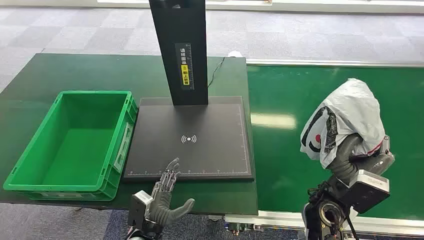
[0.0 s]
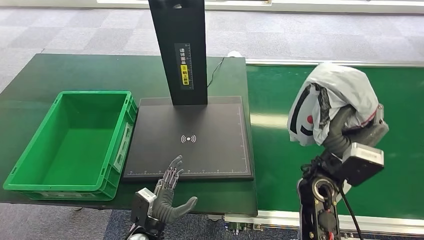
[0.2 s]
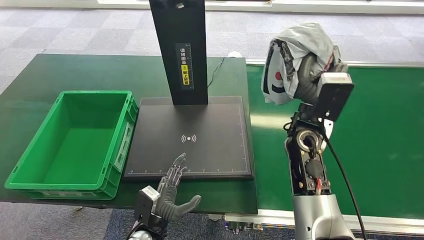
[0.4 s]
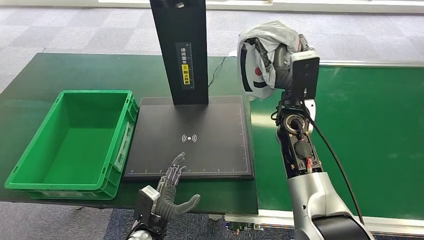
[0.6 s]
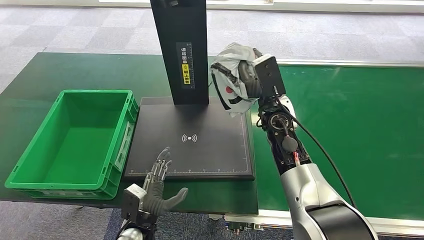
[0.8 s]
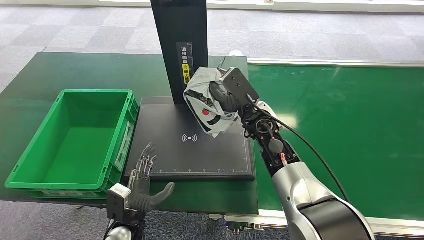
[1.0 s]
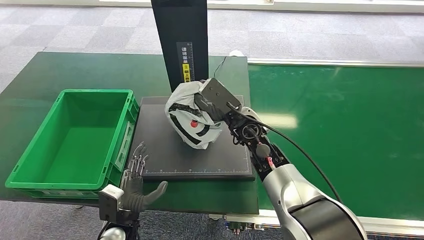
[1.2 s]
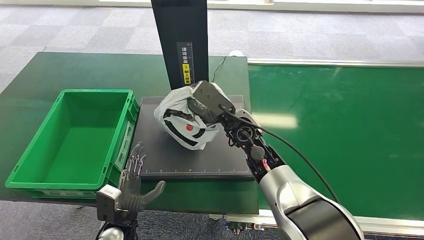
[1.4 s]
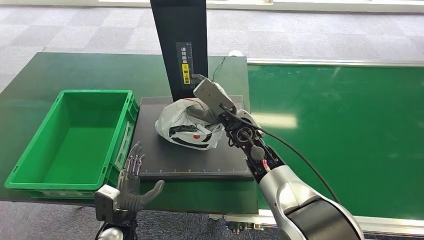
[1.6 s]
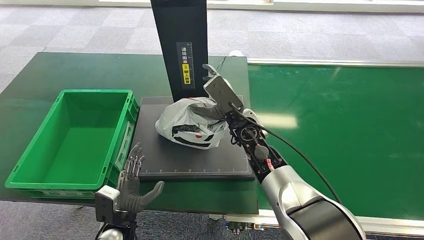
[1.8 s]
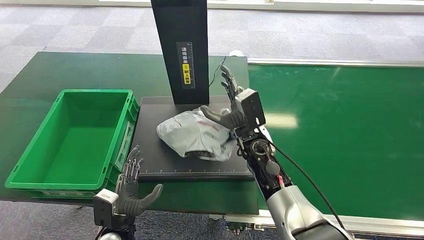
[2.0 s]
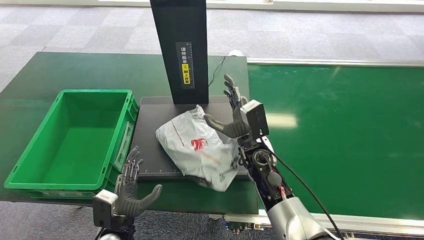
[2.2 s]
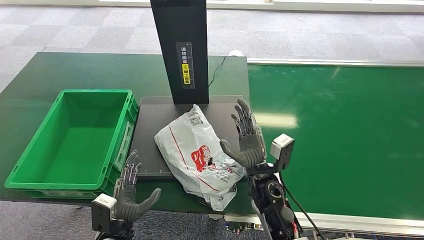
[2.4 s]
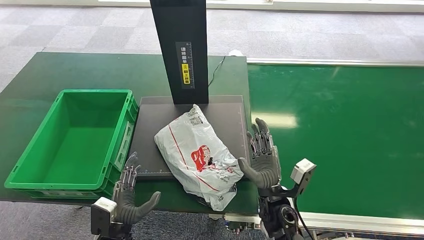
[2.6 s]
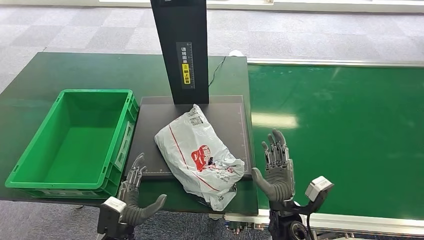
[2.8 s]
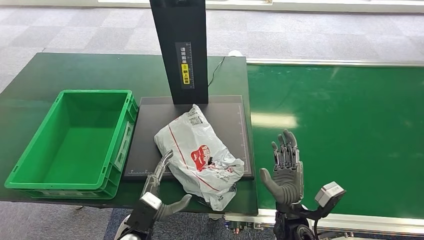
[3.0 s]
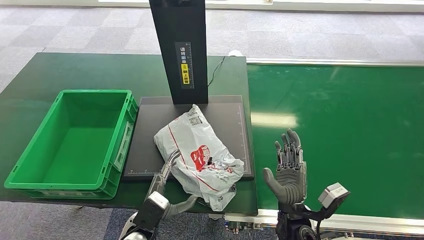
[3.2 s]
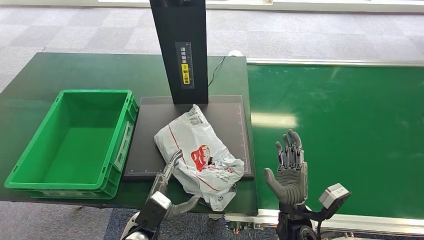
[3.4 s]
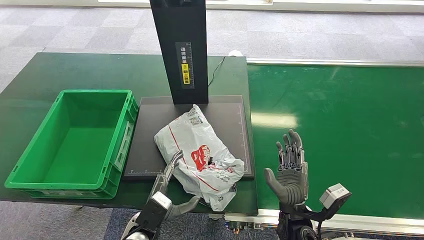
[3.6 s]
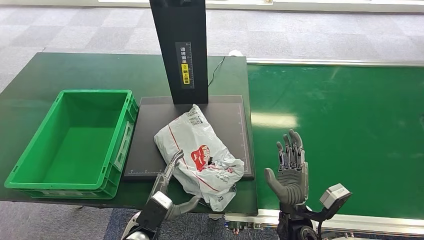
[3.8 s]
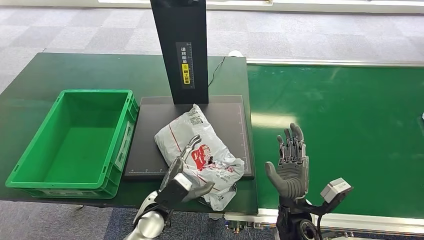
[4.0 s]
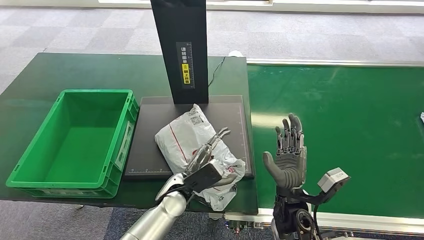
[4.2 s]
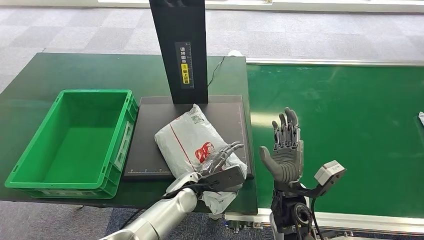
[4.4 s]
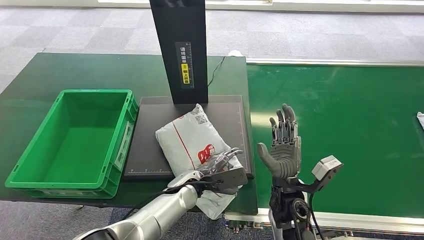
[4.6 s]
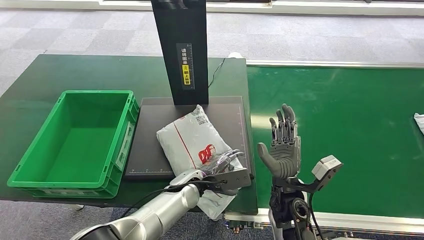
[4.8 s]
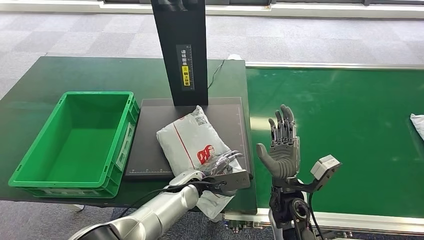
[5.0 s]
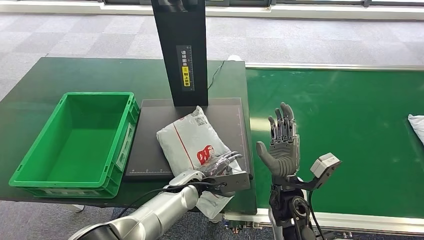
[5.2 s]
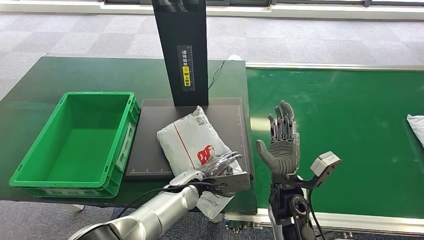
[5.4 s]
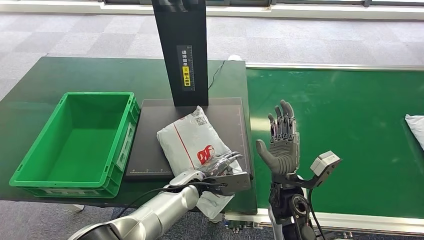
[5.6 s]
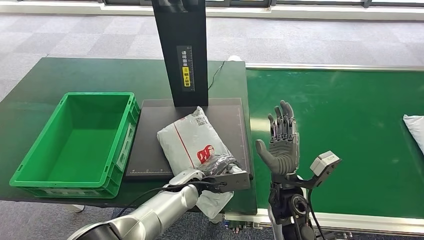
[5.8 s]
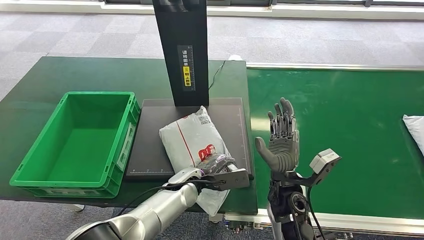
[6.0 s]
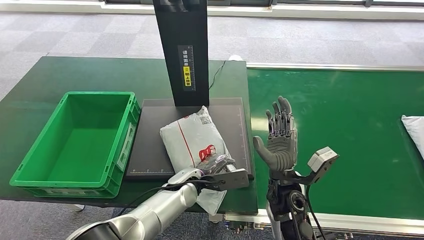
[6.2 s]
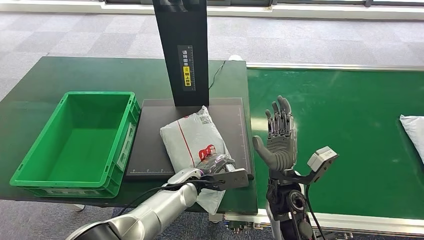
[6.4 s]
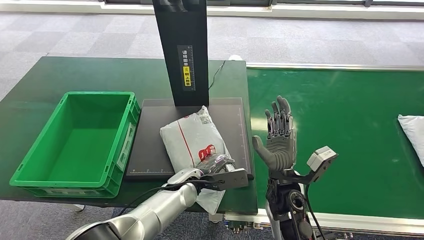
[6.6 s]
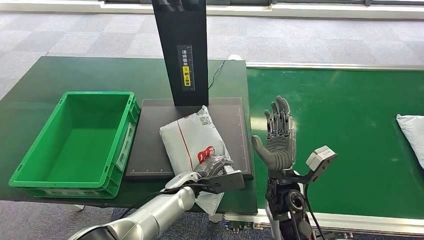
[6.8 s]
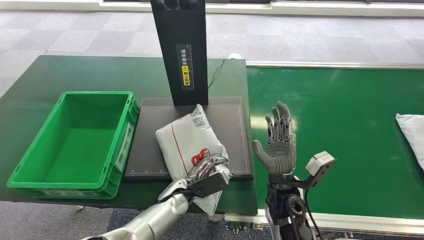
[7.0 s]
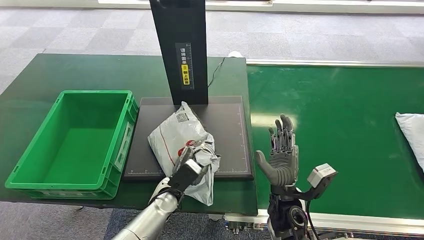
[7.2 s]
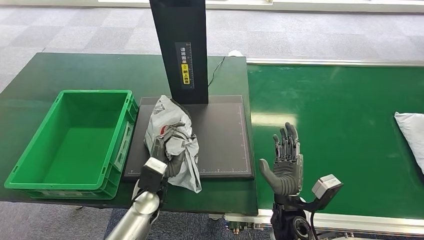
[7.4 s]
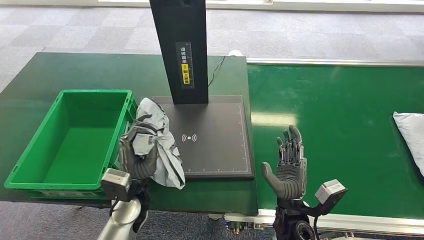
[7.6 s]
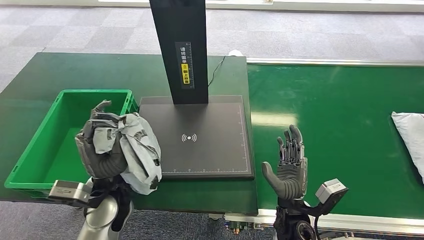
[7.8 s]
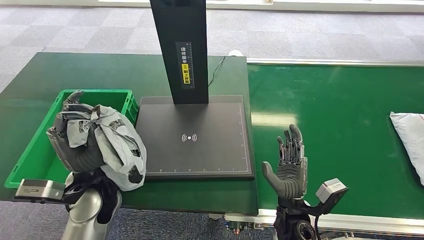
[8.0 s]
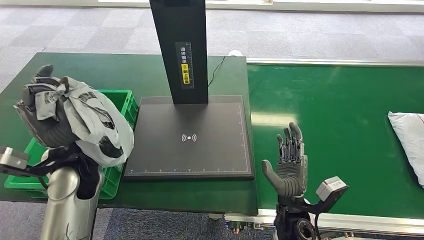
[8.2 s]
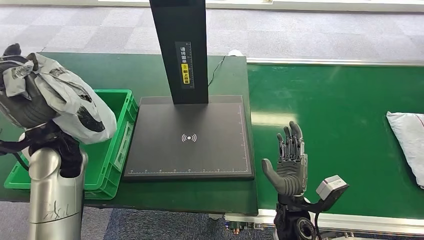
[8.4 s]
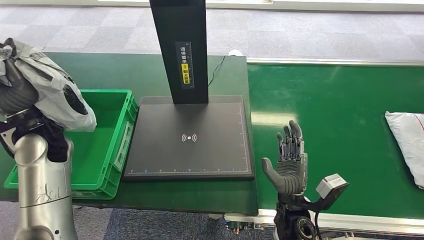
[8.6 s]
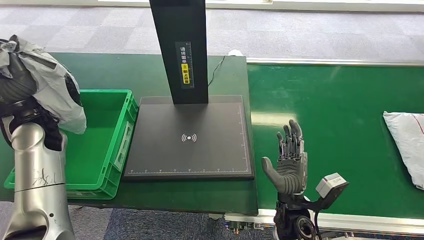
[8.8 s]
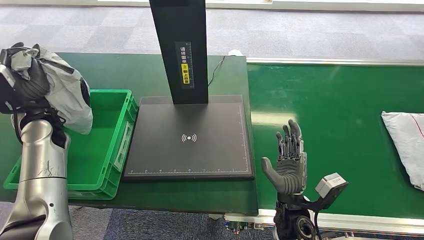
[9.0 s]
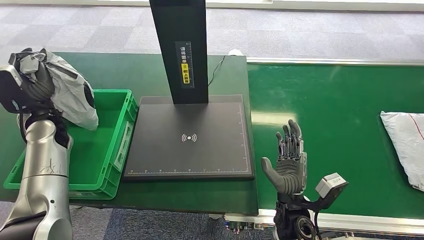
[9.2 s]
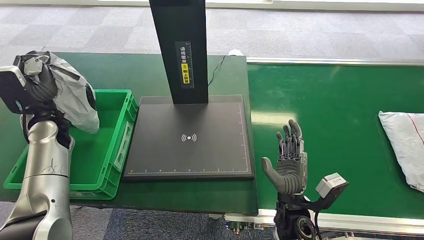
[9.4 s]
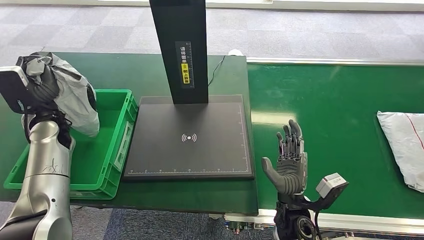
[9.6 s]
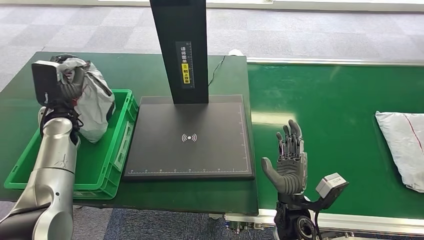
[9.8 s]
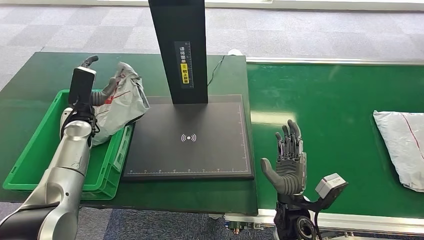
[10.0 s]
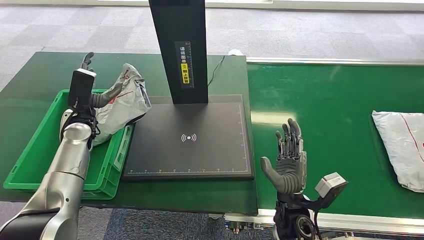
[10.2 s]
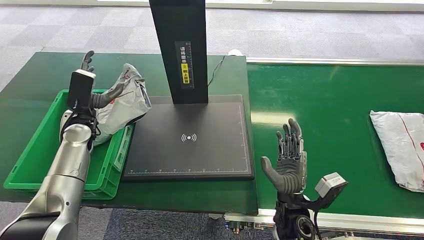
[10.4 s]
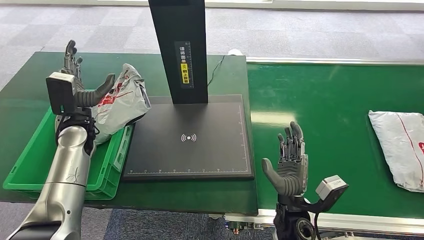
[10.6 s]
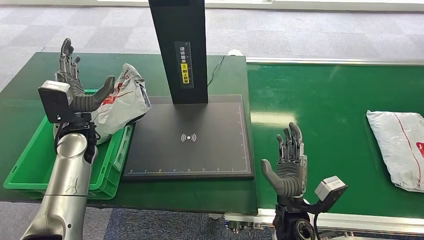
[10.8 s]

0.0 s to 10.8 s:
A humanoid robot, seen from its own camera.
Step, 0.0 to 0.2 s: Pick up the package from the conveyor belt.
Step, 2.6 to 2.8 s: Place the package onto the inbound machine.
1.6 to 3.0 s: The right hand goes some 25 cm backward, downward and to the right.
3.0 to 4.6 s: The left hand is displaced forward and to the right by roughly 15 cm; the right hand moves forward, about 5 cm.
9.2 to 10.8 s: The left hand moves to the right, roughly 10 cm.
